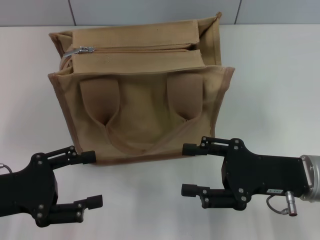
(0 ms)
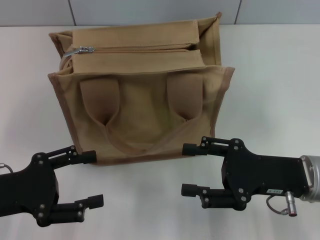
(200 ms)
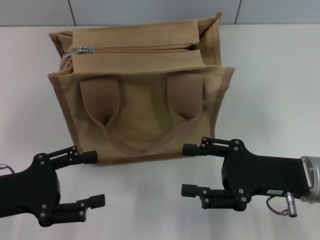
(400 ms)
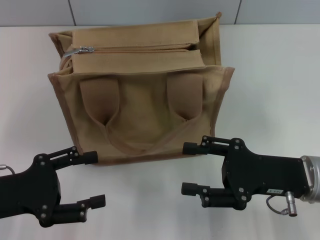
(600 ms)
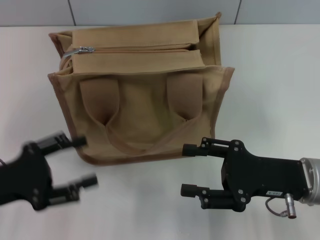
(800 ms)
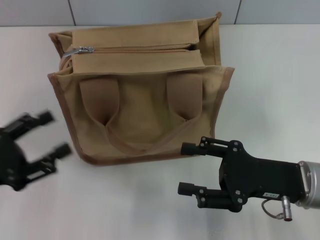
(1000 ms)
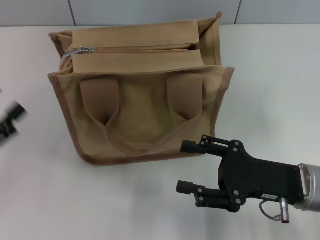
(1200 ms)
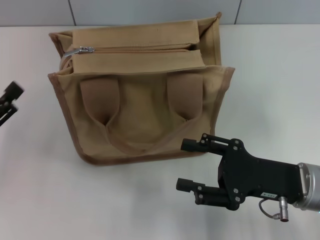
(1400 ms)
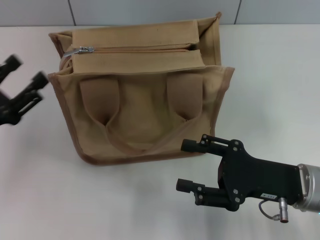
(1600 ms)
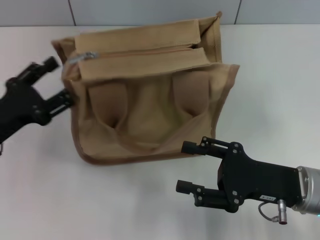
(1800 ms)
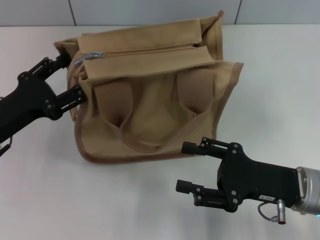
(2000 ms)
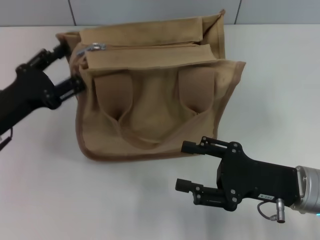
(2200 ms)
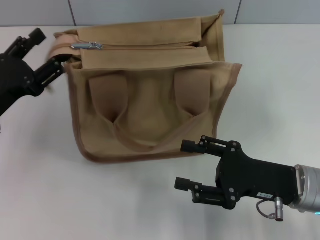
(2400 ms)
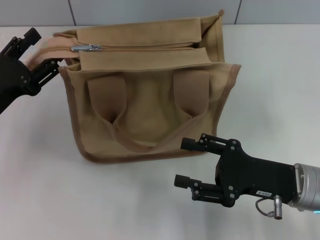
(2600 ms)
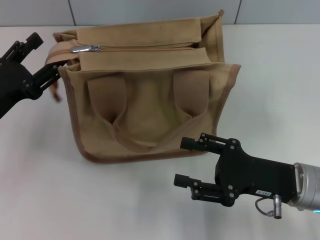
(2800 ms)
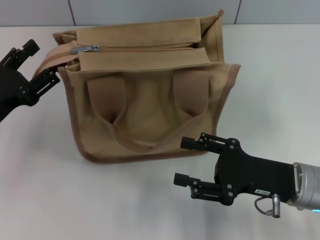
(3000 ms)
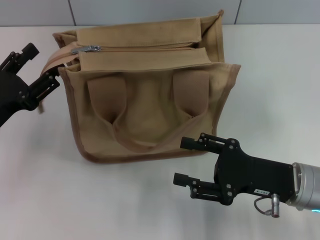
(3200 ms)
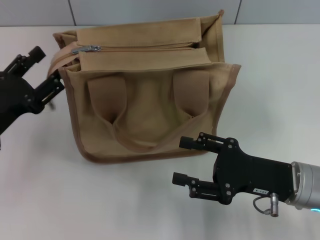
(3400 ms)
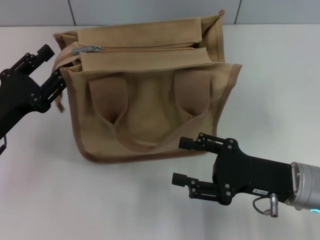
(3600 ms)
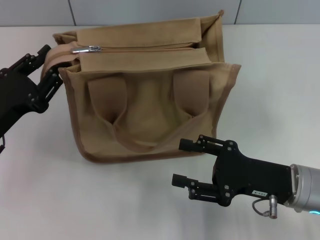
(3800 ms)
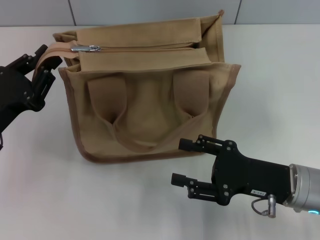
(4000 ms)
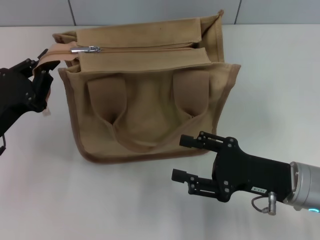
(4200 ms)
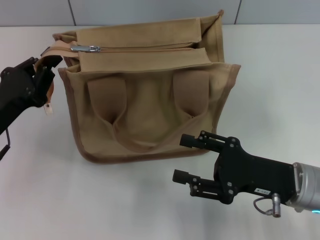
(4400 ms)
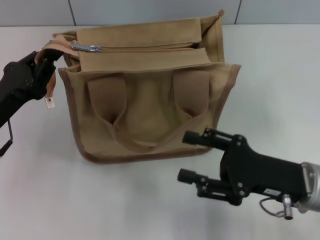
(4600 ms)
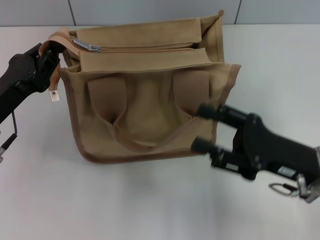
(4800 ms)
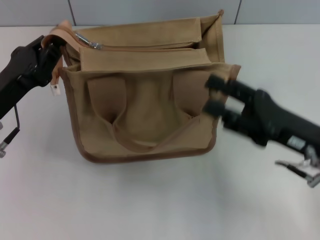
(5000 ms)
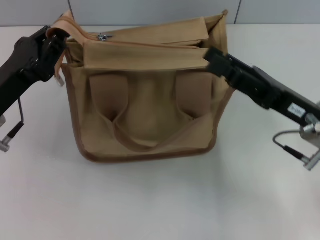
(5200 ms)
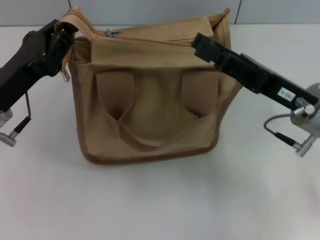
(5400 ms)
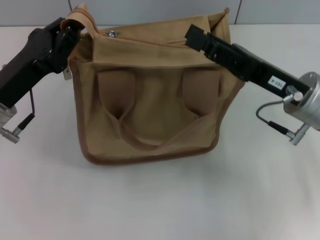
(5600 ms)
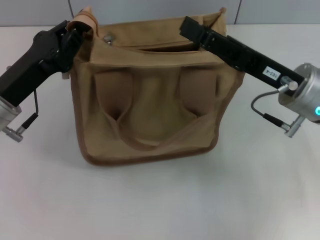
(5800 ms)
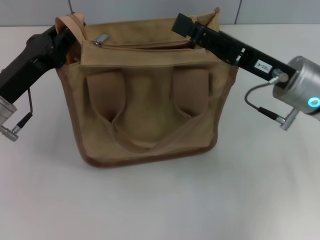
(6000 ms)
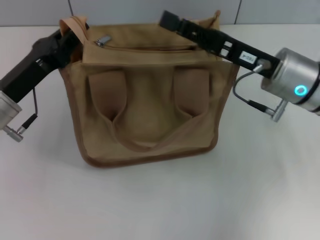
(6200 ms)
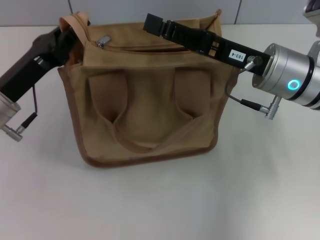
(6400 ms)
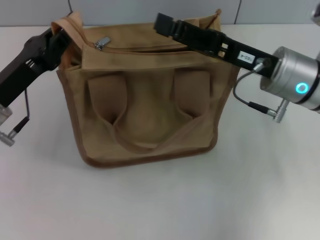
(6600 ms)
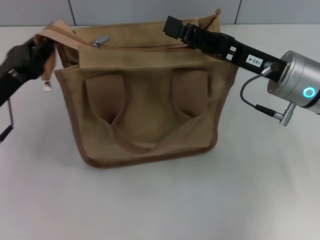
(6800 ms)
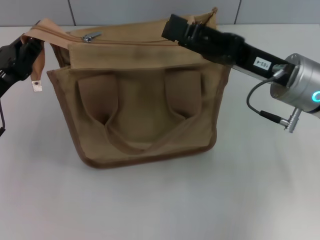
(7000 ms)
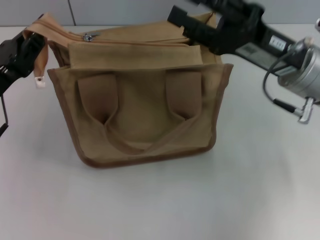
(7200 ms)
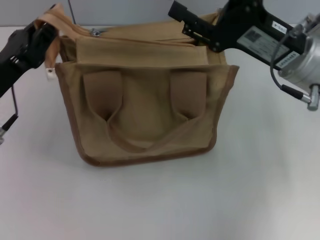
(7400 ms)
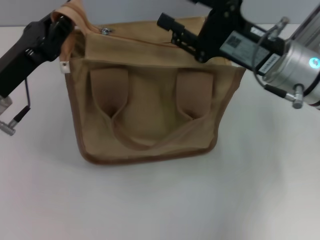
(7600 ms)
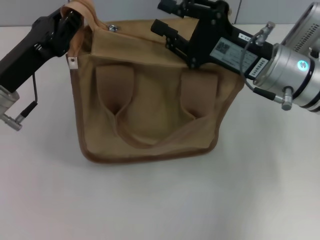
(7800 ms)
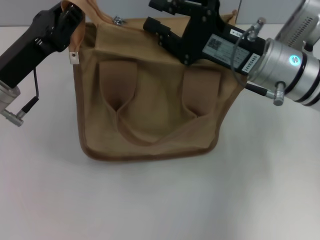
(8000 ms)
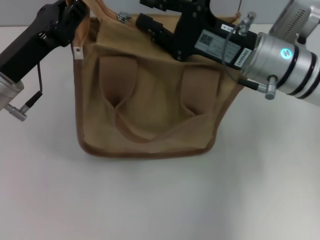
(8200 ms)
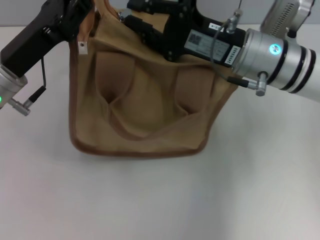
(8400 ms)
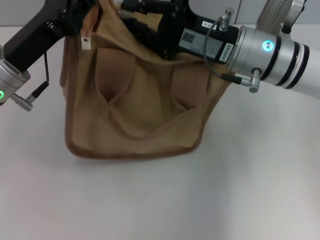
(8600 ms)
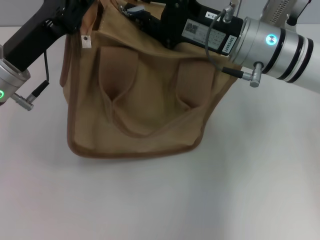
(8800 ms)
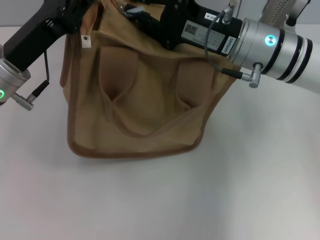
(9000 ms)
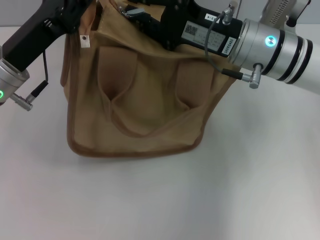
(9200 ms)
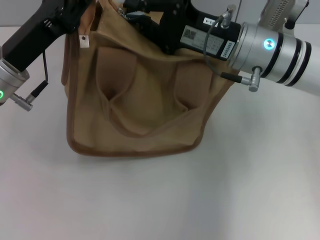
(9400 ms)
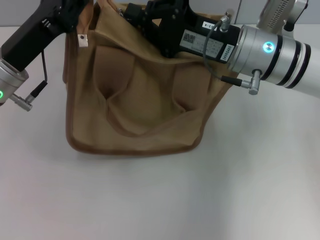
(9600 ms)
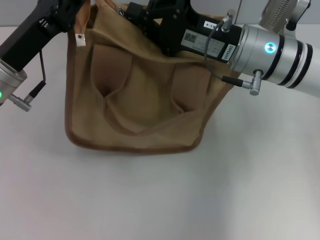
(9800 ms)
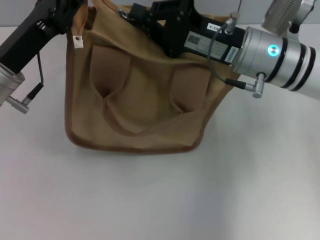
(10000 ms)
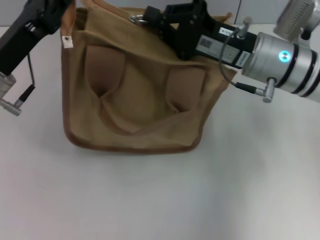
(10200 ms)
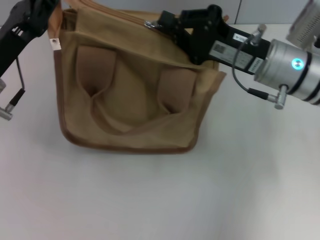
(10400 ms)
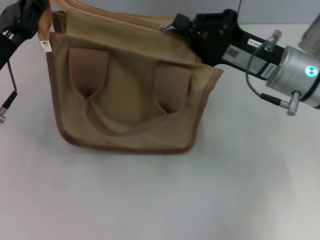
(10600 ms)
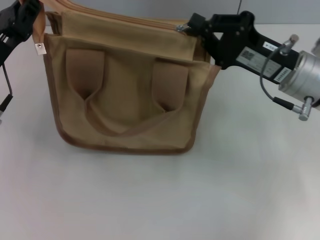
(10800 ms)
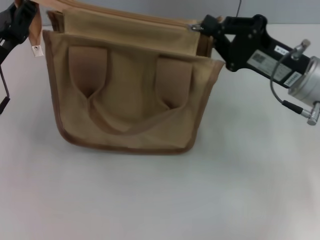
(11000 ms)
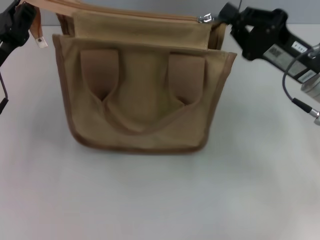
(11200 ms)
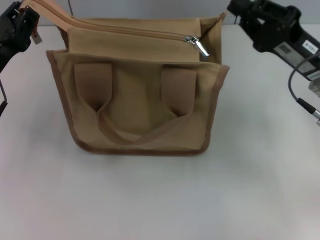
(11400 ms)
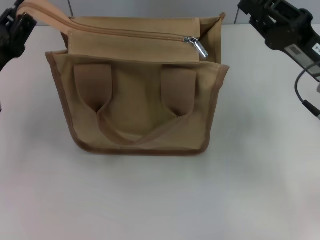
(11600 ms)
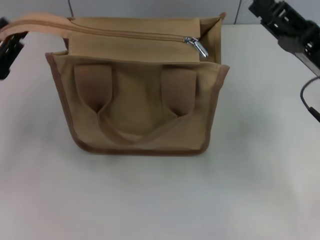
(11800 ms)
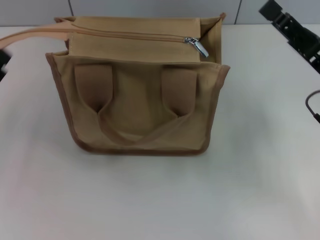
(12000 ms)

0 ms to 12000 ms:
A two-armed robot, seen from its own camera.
Step, 0 ms to 11400 ms: Pull up the zipper with your right hand.
1600 ms to 3000 ms: There are only small adjustments of the grippers.
3000 ms to 4400 ms: The left gripper closes up.
4400 ms to 6000 ms: The right gripper goes about 10 cm forward and upward. The left gripper moves roughly 5 cm.
7600 ms to 9000 ms: The right gripper shifts by about 5 cm, and closes up.
9000 ms to 10400 ms: The right gripper ends up roughly 5 cm from where it was, and closes up.
10400 ms to 12000 ms: The left gripper travels backward, to the left and downward by approximately 15 cm, and opens up, while the right gripper is displaced to the right and backward by roughly 10 cm, and opens up.

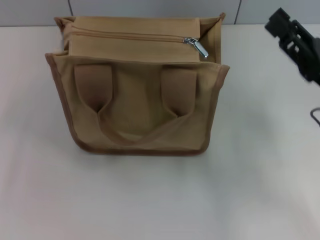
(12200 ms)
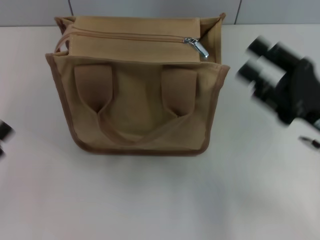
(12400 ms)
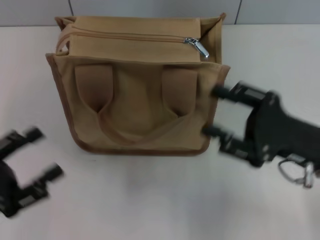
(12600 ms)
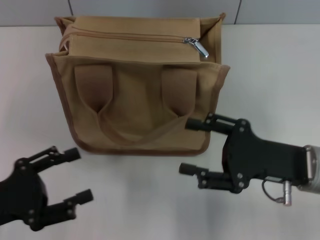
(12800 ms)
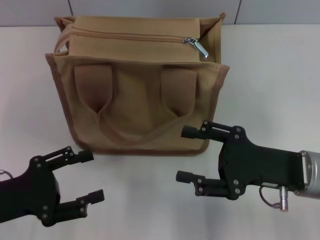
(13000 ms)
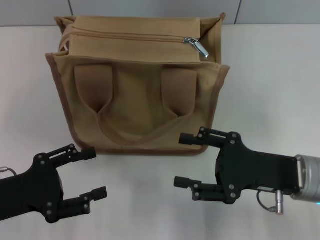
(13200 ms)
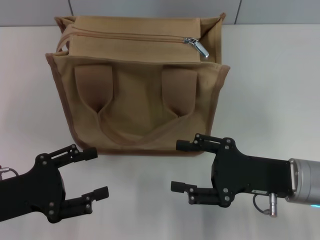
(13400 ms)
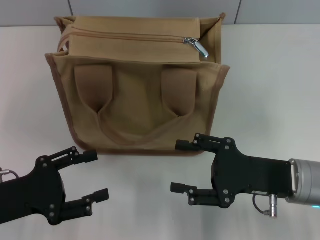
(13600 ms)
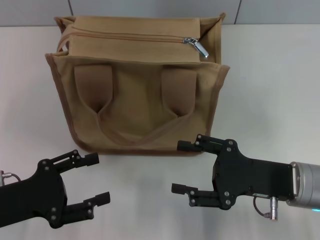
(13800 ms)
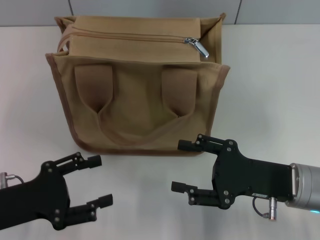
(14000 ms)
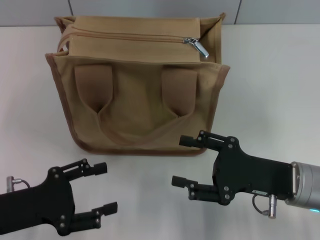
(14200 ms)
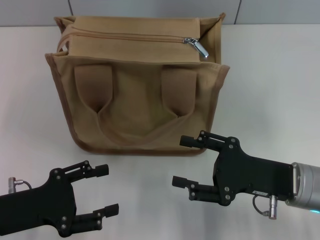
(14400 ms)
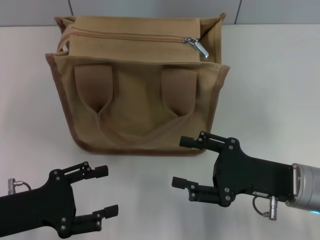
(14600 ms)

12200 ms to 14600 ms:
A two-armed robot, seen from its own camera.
12200 ms to 13400 ms: The left gripper shifts about 5 cm to the right, while the right gripper moves to the left, approximately 5 cm.
13400 ms to 14600 ms: The grippers move only a little.
